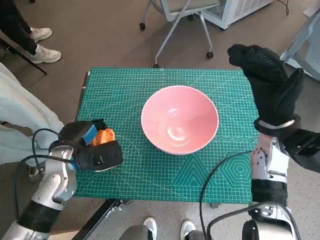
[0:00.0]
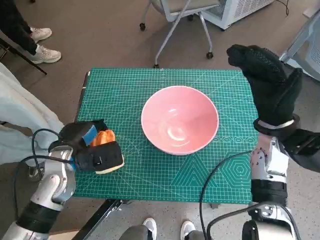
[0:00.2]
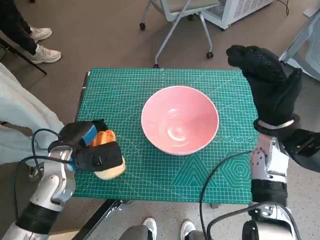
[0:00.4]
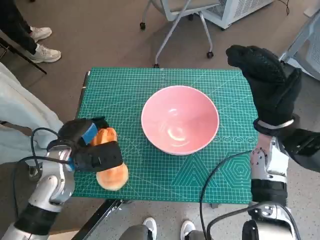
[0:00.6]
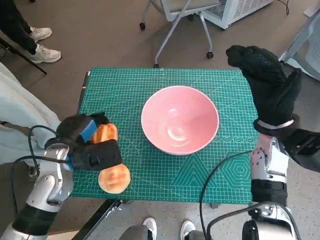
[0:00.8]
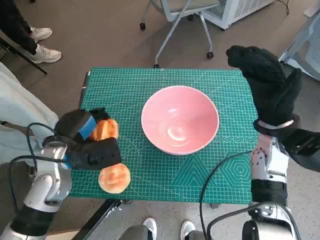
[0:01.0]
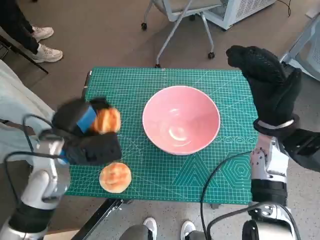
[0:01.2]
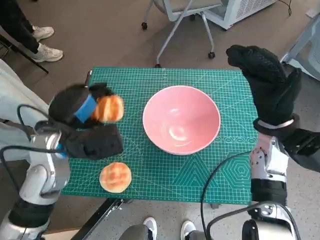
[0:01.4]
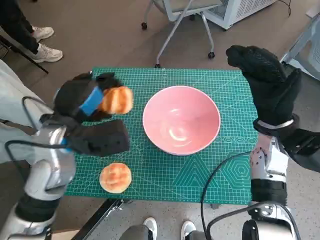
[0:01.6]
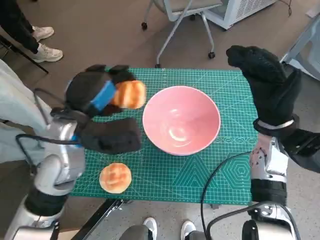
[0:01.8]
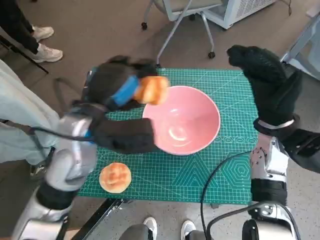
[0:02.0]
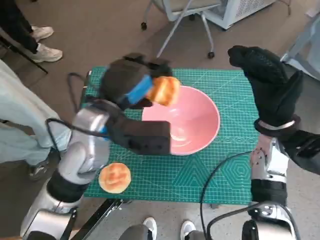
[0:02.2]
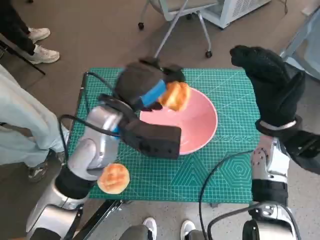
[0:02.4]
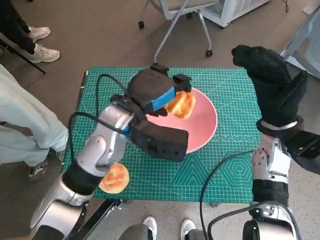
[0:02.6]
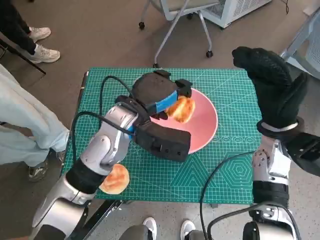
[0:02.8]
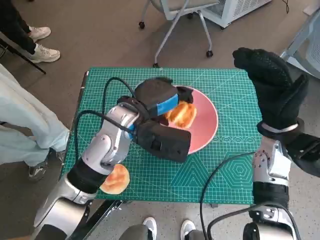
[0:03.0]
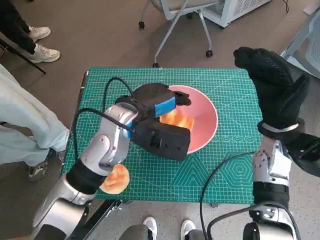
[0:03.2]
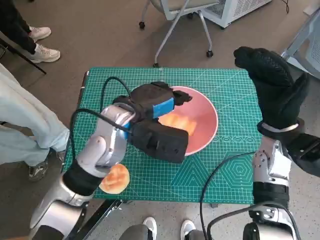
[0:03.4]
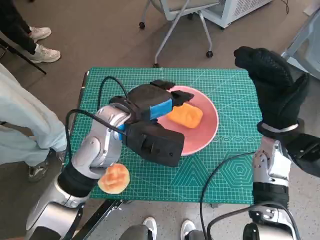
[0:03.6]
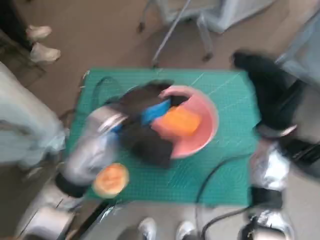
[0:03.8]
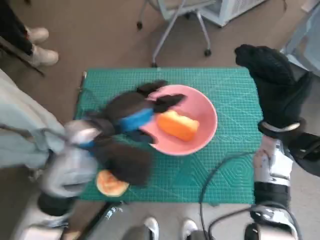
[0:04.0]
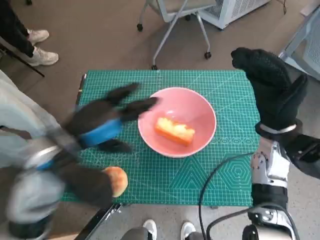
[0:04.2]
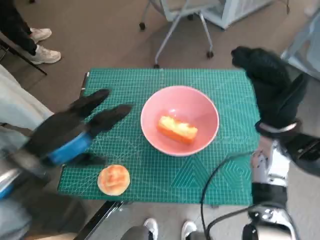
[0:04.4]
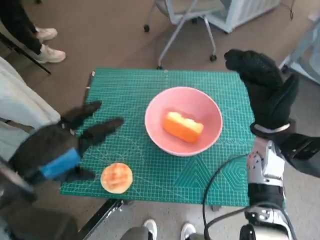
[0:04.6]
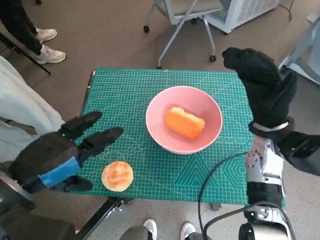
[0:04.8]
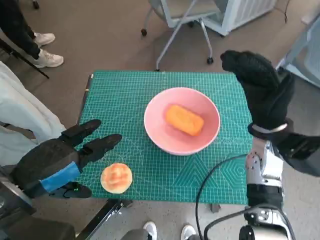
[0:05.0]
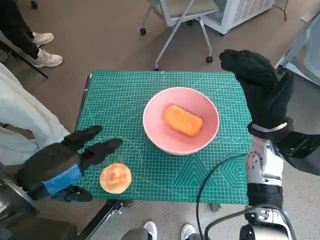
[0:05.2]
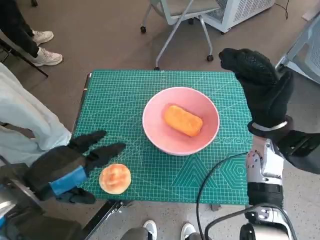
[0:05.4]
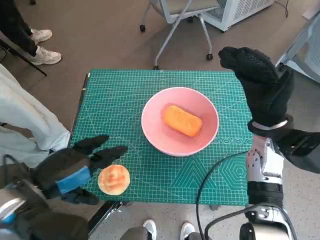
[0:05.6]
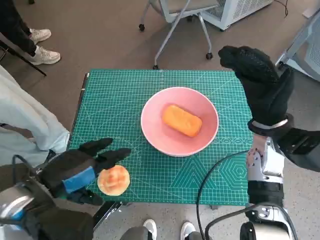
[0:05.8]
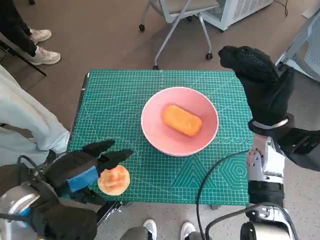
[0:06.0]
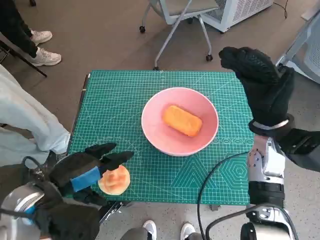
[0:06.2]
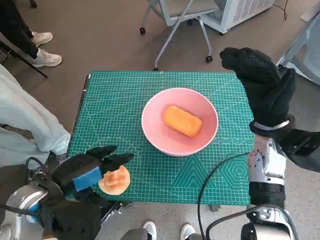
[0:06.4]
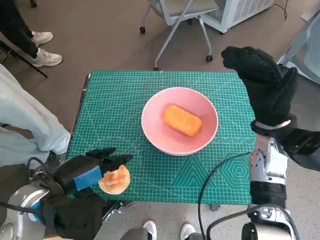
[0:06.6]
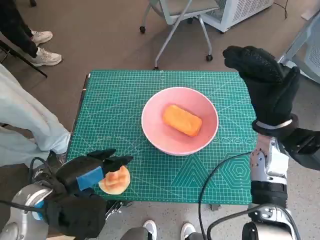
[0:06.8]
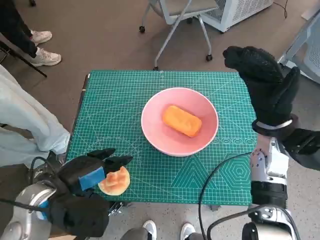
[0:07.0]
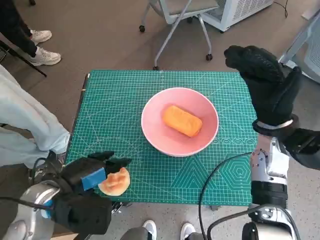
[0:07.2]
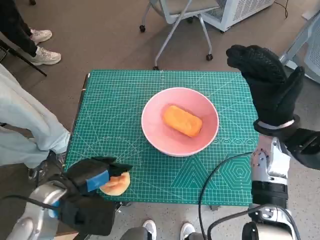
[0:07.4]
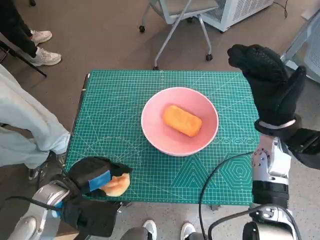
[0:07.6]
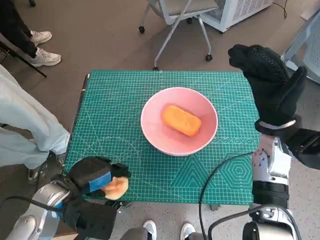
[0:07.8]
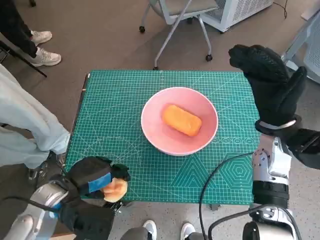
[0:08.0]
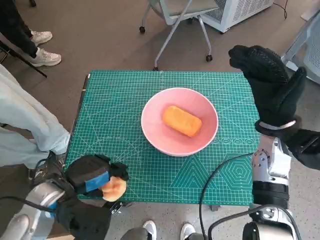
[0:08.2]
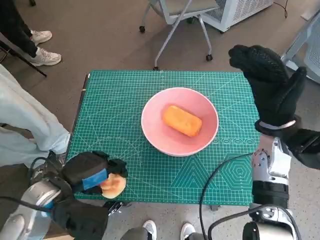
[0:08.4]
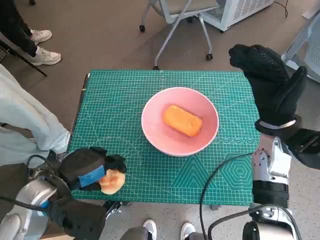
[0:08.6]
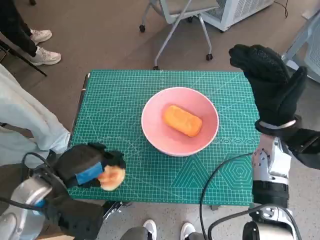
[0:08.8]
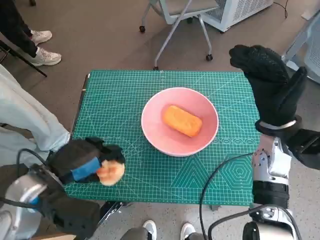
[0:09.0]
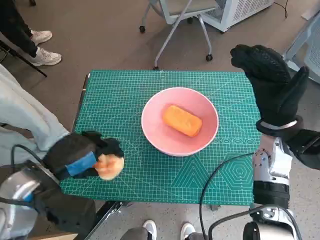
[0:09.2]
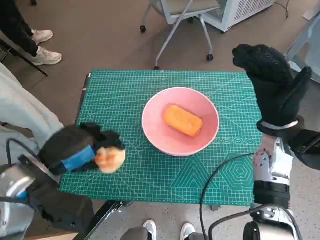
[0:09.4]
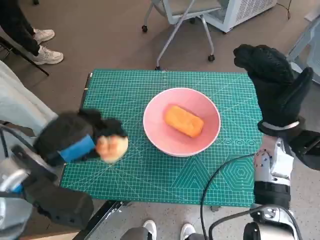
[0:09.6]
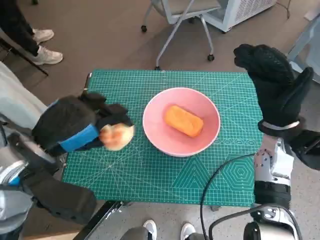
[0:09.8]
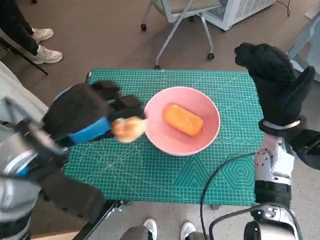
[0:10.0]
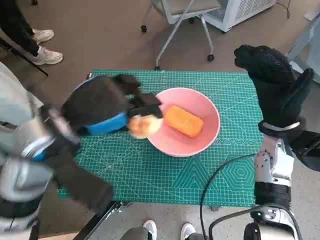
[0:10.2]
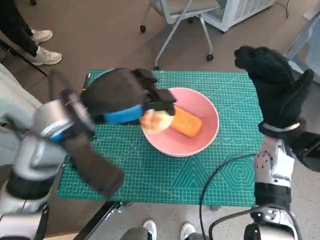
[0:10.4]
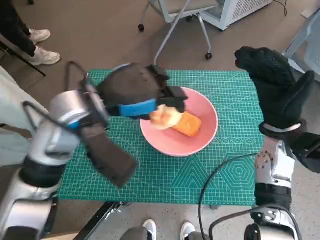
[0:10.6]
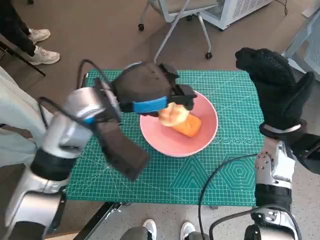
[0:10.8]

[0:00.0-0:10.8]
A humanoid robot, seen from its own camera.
Task of the whole recording: Push the bowl into the center of the table and put the bread into the bowl.
Step, 0:00.0 to 0:03.6: Place the long bread in pink bowl with left hand.
Step, 0:04.0 to 0:08.2: Grasp the round bread with left hand.
0:00.0 to 0:01.6: The left hand travels upward by roughly 10 cm.
0:01.6 to 0:03.0: The left hand is displaced to the right by roughly 10 cm.
0:03.0 to 0:04.6: The left hand is displaced backward and to the left by some 20 cm.
0:04.6 to 0:06.2: The left hand shifts about 5 cm downward.
0:06.2 to 0:07.8: The left hand goes roughly 5 cm downward.
0:07.8 to 0:09.2: The left hand moves upward, some 5 cm.
0:09.2 to 0:10.8: The left hand goes about 15 cm forward, to the right and upward.

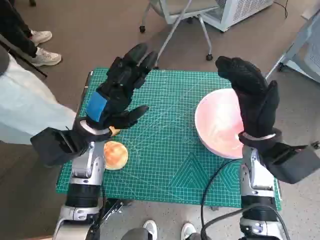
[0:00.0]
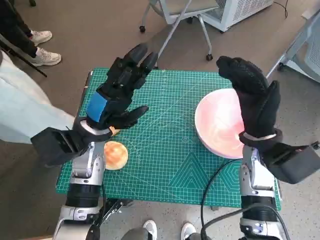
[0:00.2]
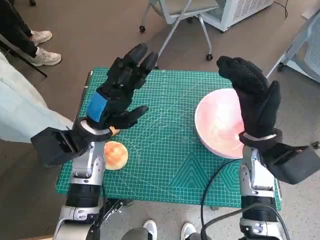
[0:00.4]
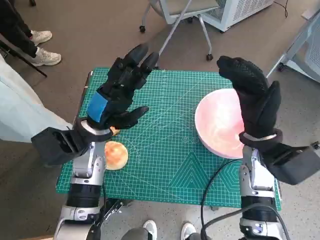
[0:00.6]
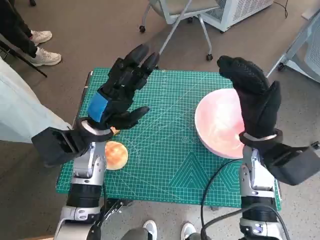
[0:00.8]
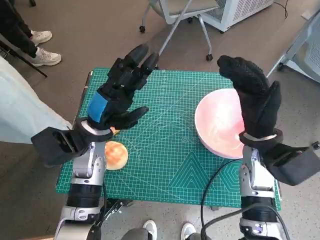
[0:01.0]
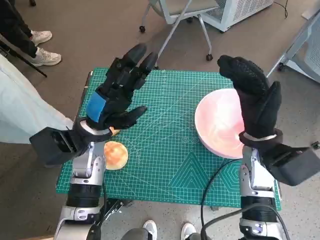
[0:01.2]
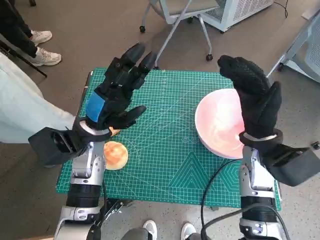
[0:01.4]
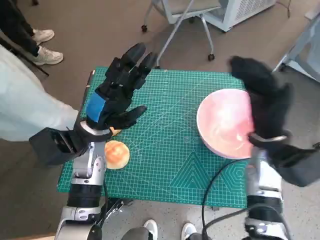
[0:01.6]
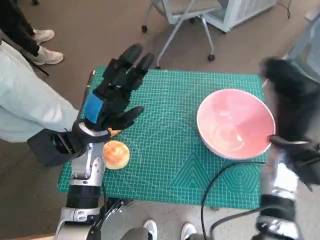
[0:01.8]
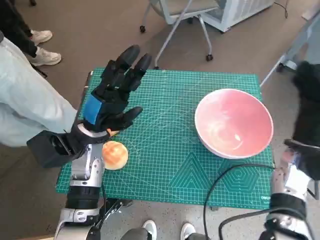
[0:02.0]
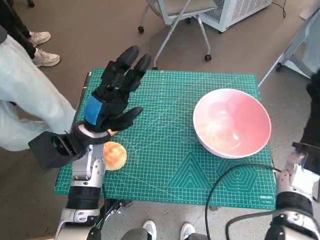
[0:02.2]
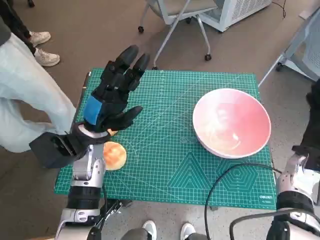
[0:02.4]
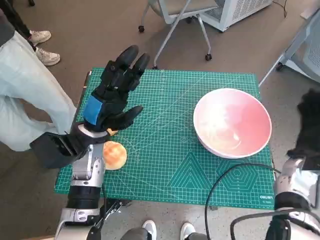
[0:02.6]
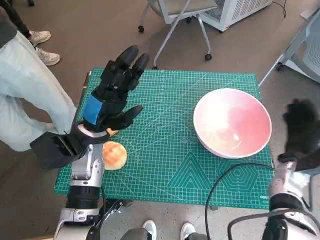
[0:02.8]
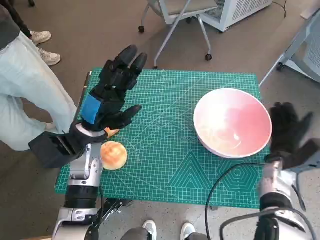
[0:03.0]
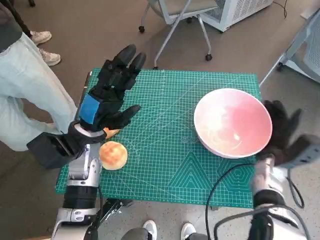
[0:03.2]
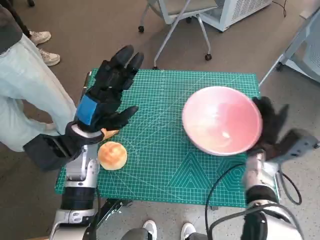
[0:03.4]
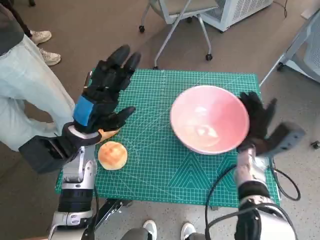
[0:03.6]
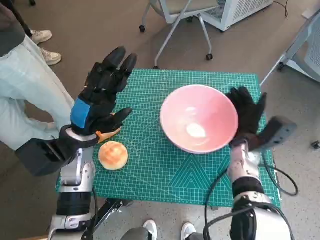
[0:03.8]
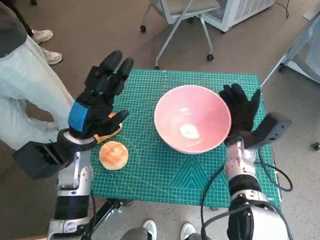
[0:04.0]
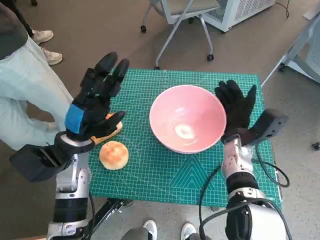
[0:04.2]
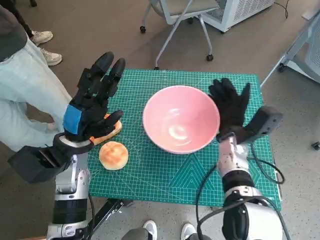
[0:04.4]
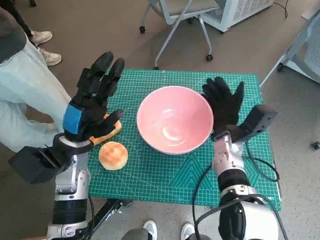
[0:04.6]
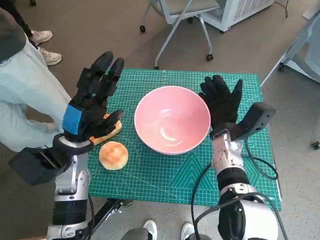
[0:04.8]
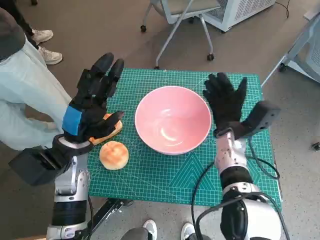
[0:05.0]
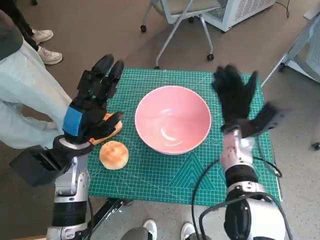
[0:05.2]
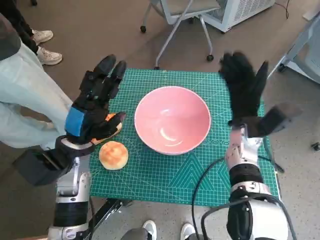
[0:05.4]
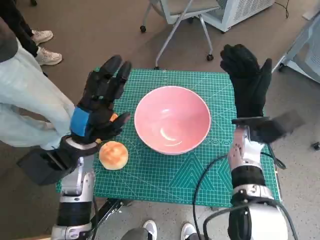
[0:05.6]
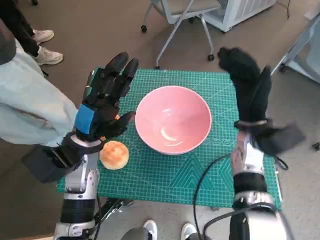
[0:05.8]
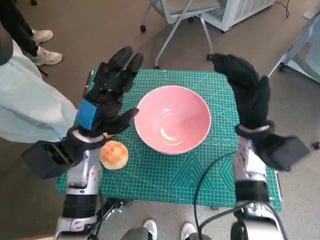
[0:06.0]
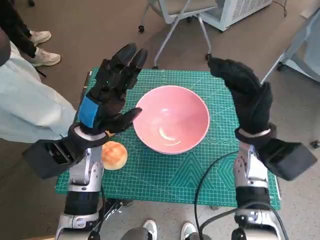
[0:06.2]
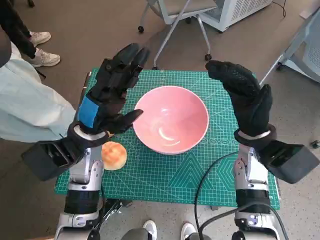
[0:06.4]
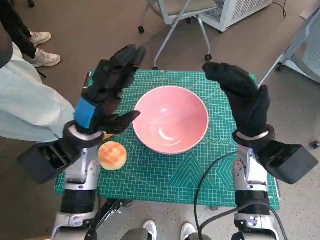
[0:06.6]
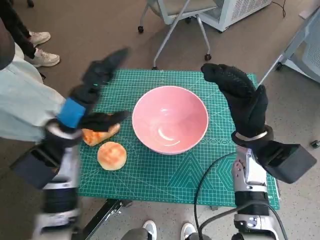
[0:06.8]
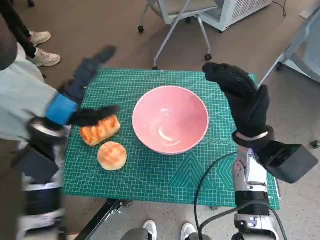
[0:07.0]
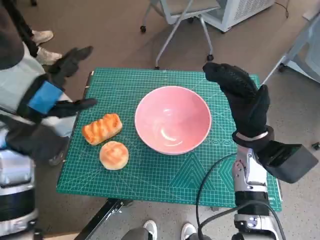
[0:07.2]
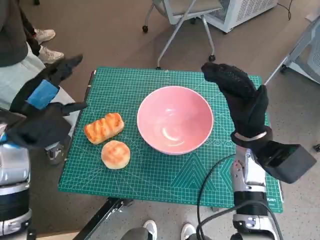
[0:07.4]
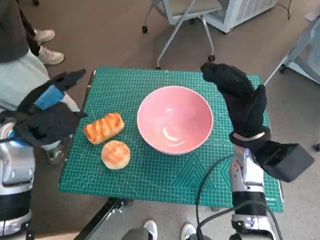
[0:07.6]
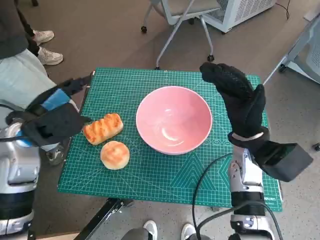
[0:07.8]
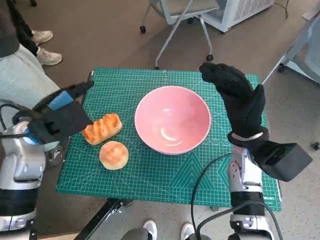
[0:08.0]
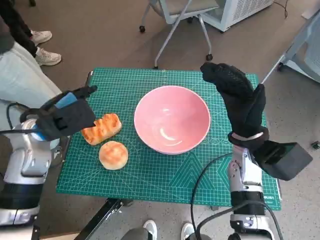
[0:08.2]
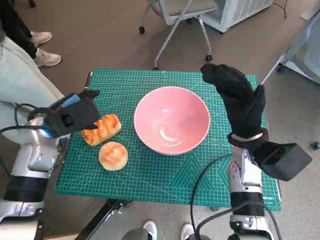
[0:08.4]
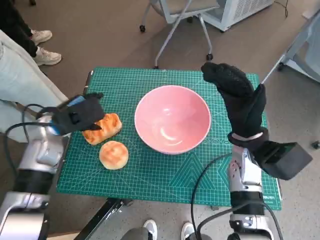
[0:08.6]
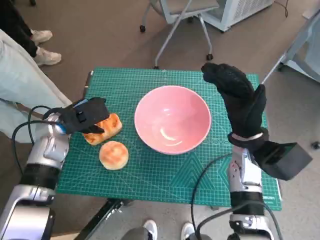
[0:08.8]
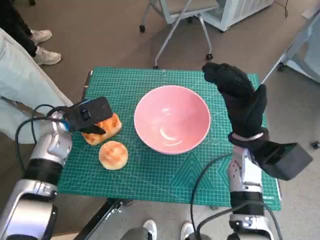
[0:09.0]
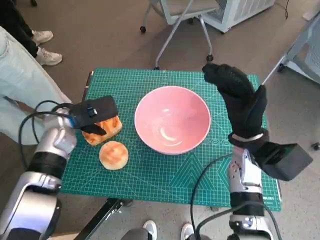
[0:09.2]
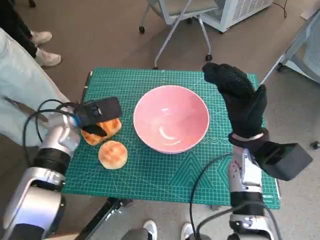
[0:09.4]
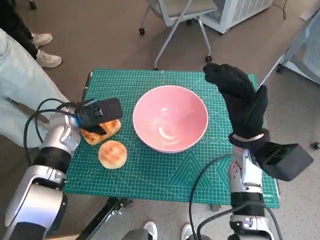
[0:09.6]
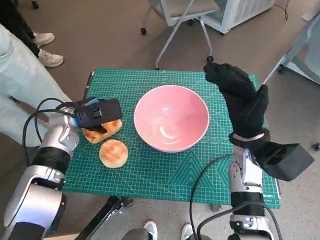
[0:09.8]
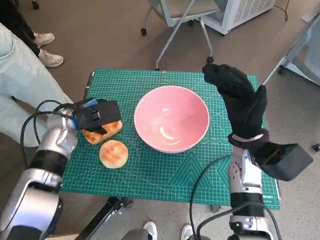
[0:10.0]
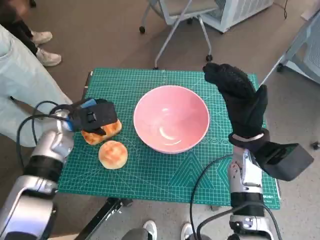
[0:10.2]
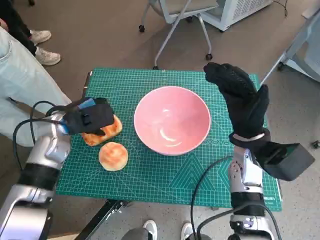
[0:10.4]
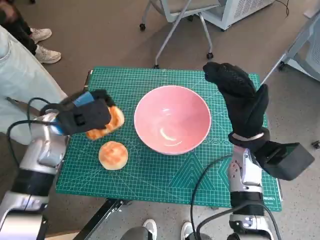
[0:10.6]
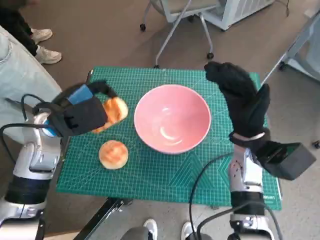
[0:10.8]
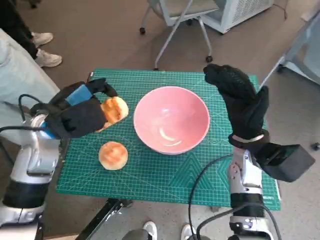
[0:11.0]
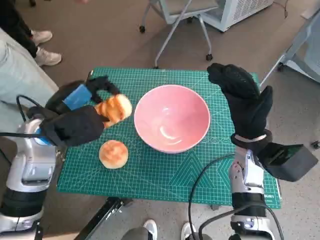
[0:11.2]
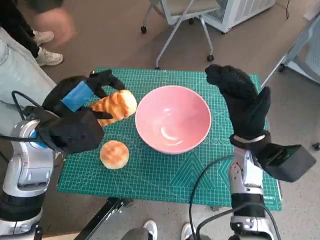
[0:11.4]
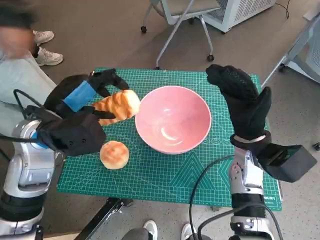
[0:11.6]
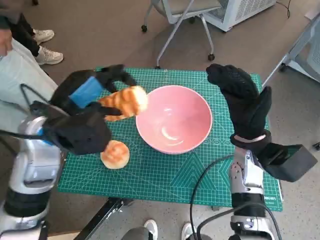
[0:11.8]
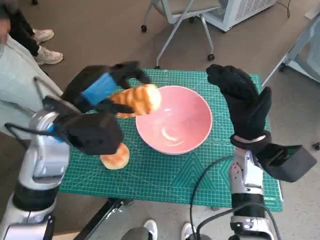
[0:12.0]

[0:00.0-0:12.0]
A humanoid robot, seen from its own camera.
Task of the whole recording: Push the bowl into the center of the table and put the bread into the bowl.
Step, 0:00.0 to 0:05.2: Move the pink bowl to the center of table with right hand.
Step, 0:05.4 to 0:09.8: Grasp the long bread with left hand.
0:01.6 to 0:03.0: The right hand travels downward and to the right by about 15 cm.
0:03.0 to 0:04.4: The right hand goes about 10 cm to the left.
0:04.4 to 0:06.0: The right hand travels upward by roughly 5 cm.
0:06.0 to 0:07.6: The left hand moves to the left and upward, some 10 cm.
0:07.6 to 0:09.0: The left hand moves downward and forward, roughly 10 cm.
0:09.0 to 0:10.4: The hands move only a little.
0:10.4 to 0:12.0: The left hand moves upward, to the right and backward, about 10 cm.
